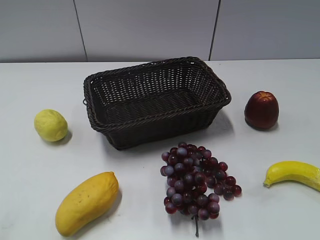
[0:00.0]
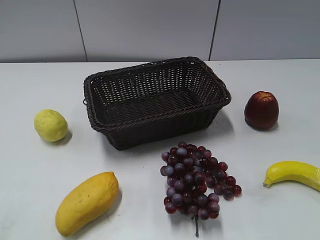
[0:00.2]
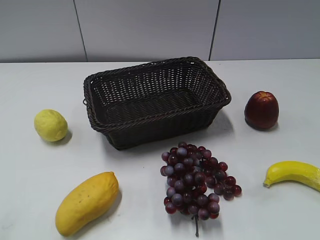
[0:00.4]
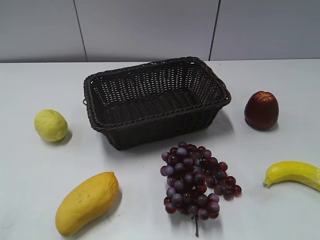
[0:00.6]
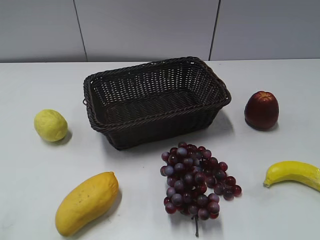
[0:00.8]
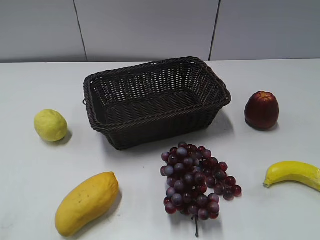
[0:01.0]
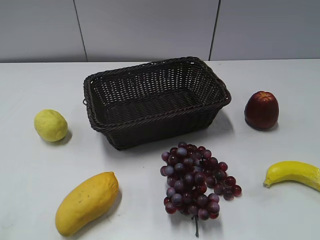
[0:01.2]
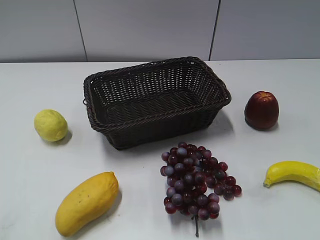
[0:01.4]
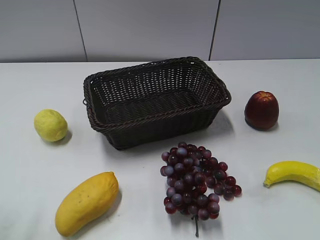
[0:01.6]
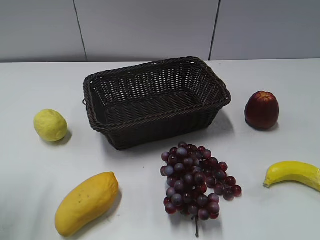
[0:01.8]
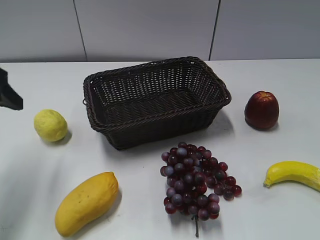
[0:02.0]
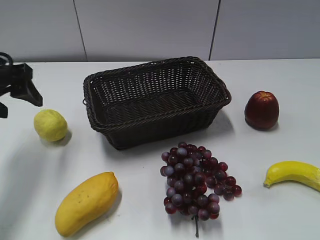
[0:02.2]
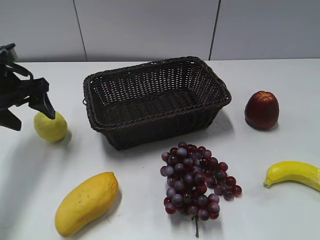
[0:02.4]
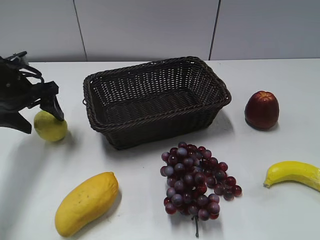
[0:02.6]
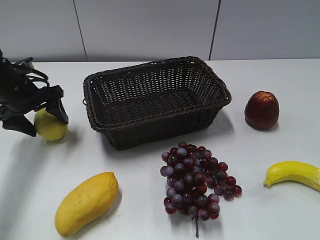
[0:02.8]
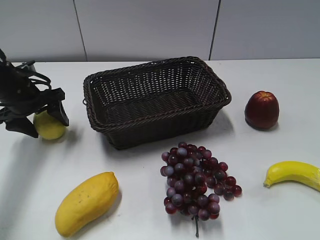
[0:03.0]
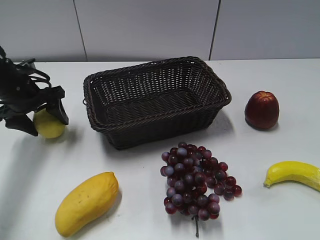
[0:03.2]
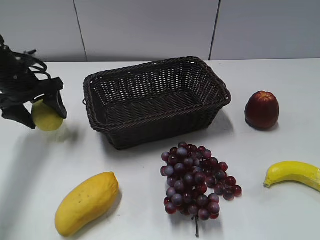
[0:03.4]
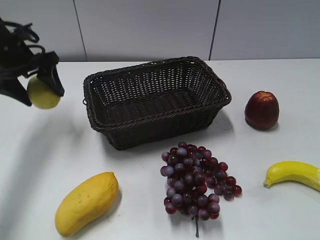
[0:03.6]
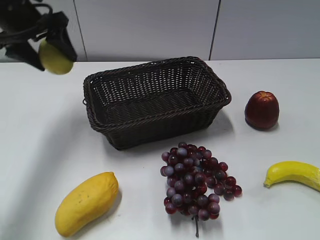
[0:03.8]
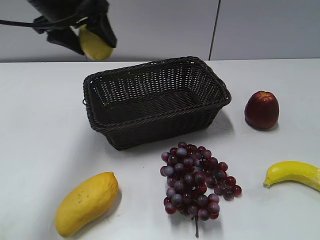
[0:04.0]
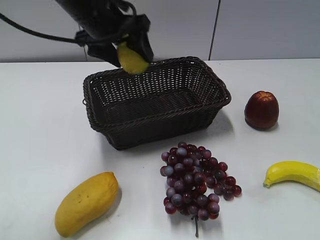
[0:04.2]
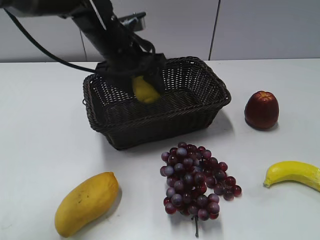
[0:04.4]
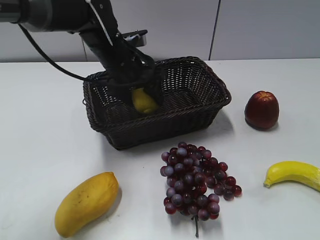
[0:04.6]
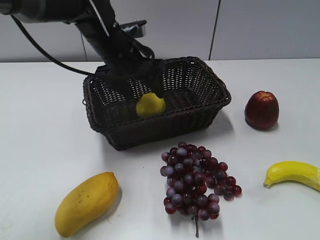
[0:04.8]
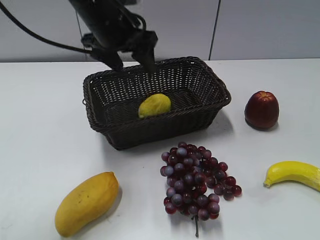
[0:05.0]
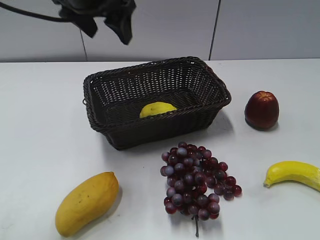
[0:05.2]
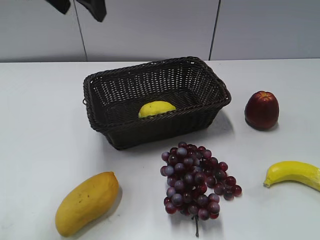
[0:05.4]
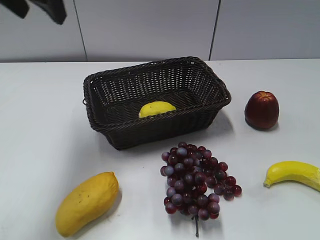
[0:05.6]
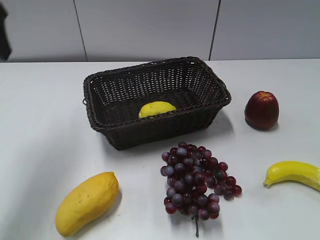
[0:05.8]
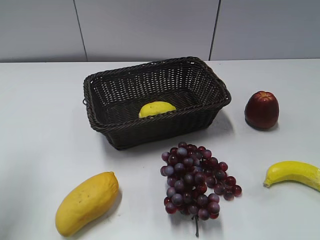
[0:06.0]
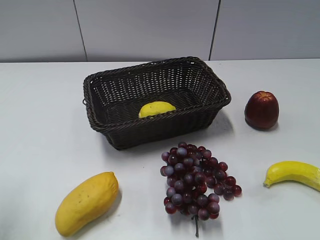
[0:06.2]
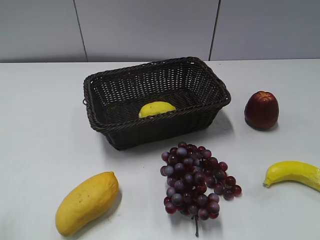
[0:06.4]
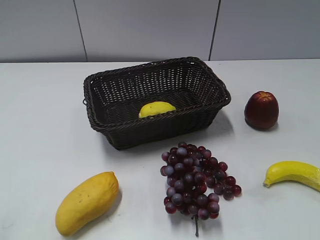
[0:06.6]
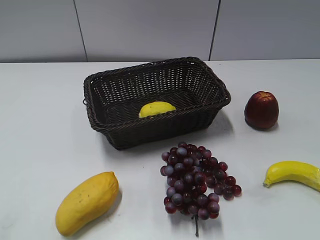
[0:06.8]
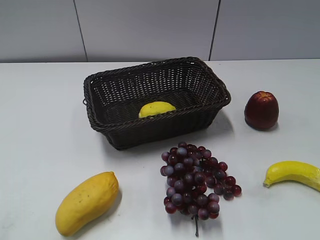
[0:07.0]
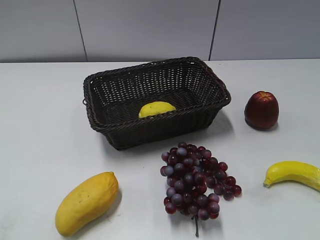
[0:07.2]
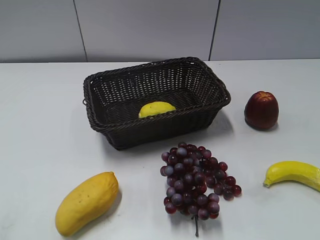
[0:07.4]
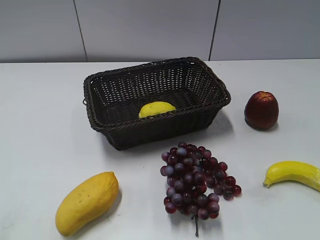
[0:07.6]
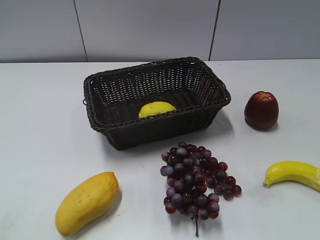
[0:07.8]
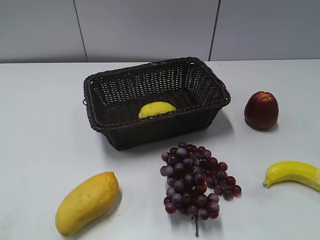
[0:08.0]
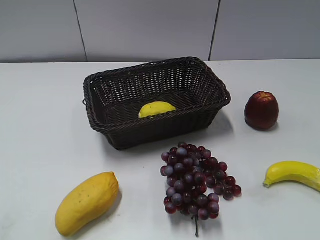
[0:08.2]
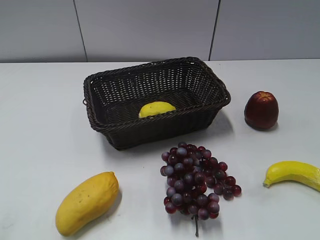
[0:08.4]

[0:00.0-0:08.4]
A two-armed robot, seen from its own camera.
Step, 0:02.0 to 0:02.8: Grasp the lemon with left gripper.
Step, 0:03.2 to 0:04.8: Place the lemon in the basket with left gripper.
0:01.4 to 0:02.8: The left gripper goes roughly 40 cm forward and downward, and opens up.
0:02.8 to 0:04.2: The left gripper is displaced to the right and upward by roughly 20 cm, and closes its fingers.
0:04.2 to 0:05.6: The left gripper travels upward and to the left by roughly 10 cm, and opens, then closes once more.
0:05.6 to 0:07.0: The left gripper moves backward, some 35 cm.
